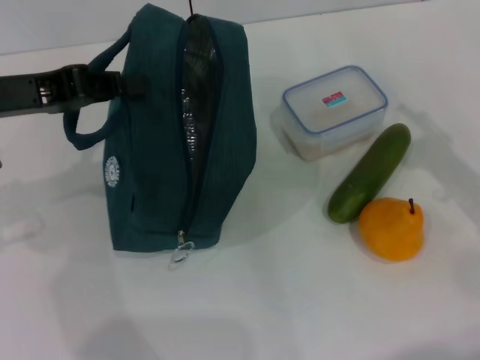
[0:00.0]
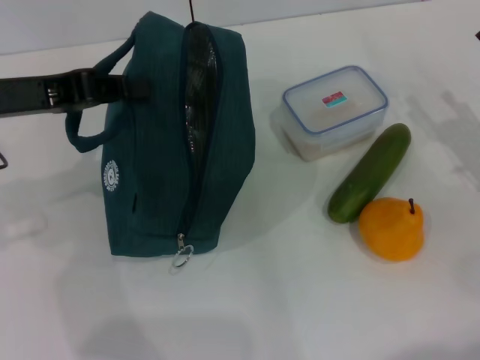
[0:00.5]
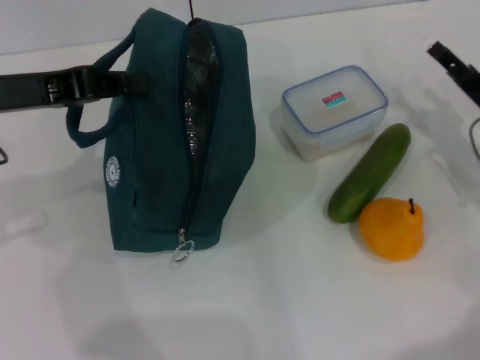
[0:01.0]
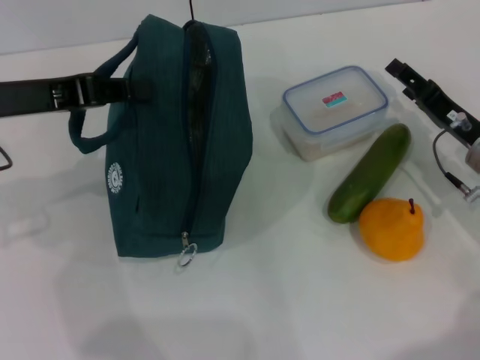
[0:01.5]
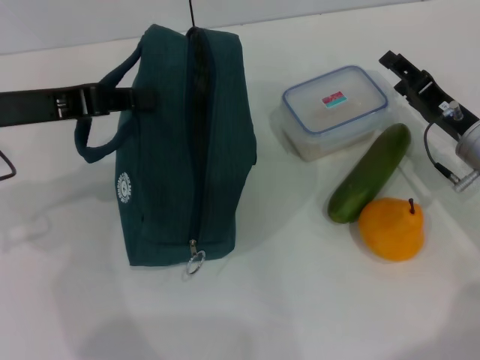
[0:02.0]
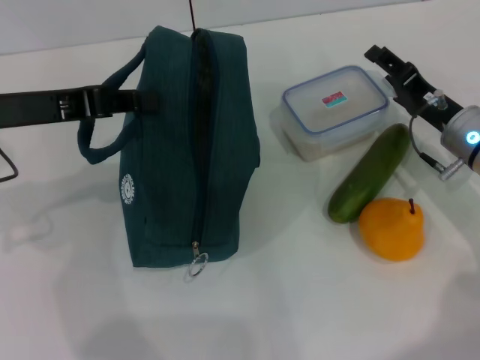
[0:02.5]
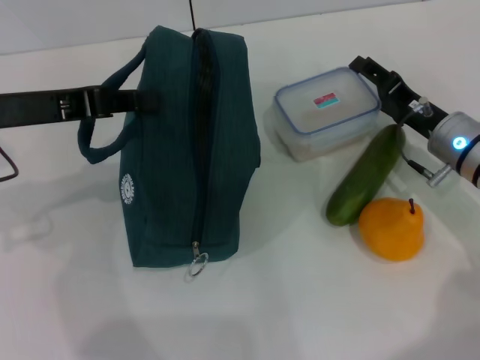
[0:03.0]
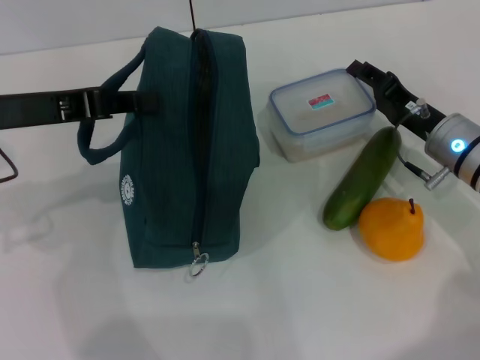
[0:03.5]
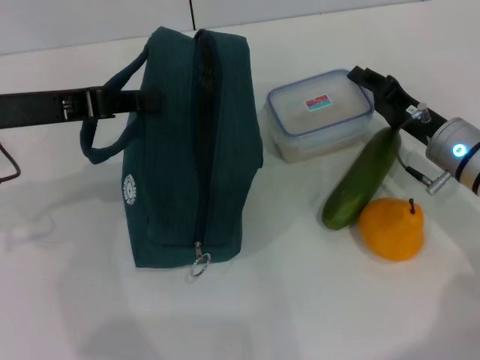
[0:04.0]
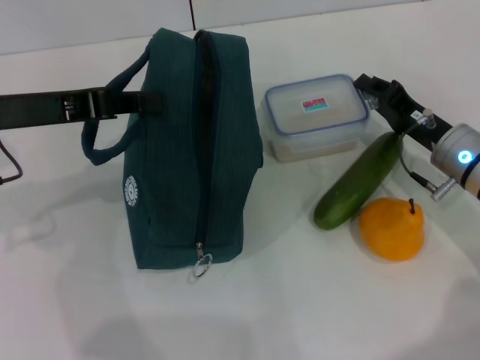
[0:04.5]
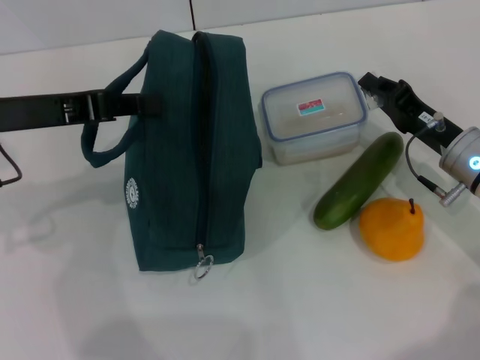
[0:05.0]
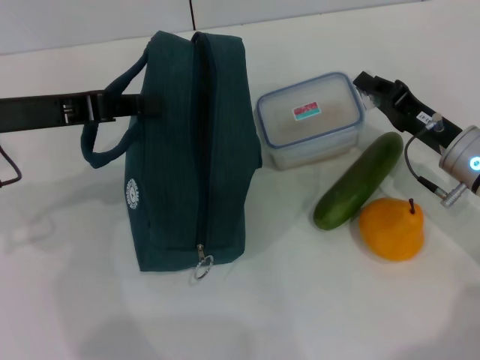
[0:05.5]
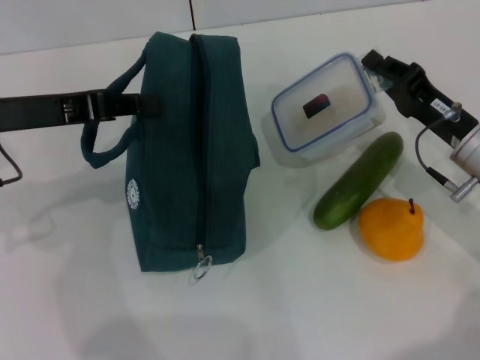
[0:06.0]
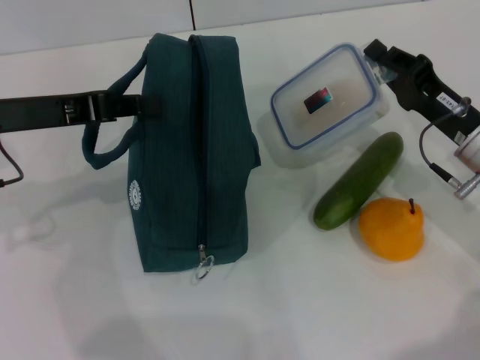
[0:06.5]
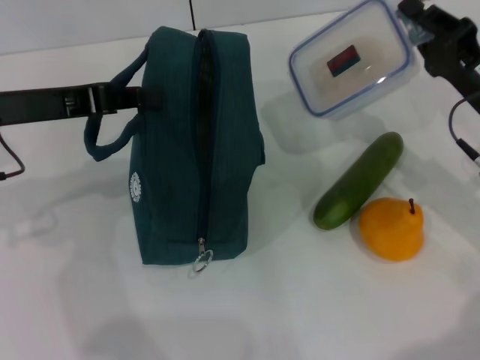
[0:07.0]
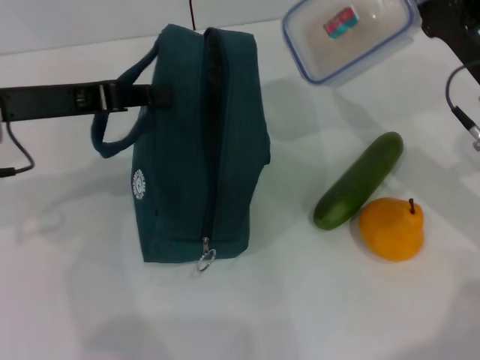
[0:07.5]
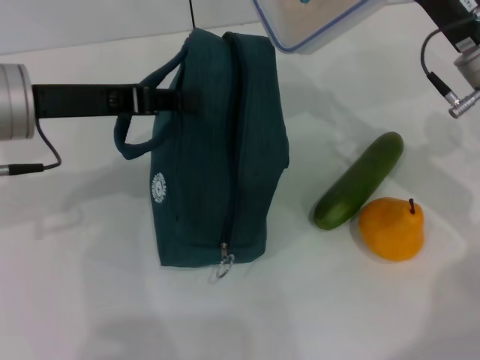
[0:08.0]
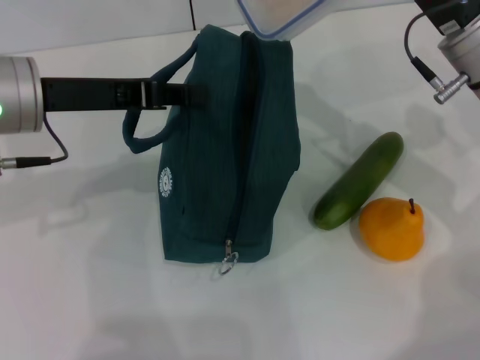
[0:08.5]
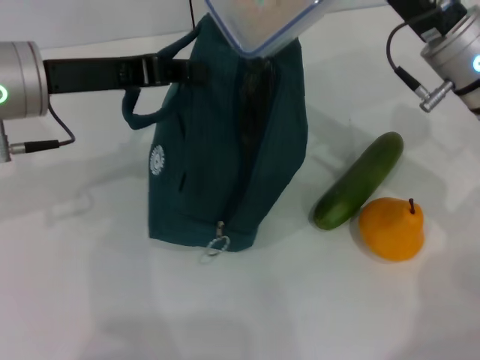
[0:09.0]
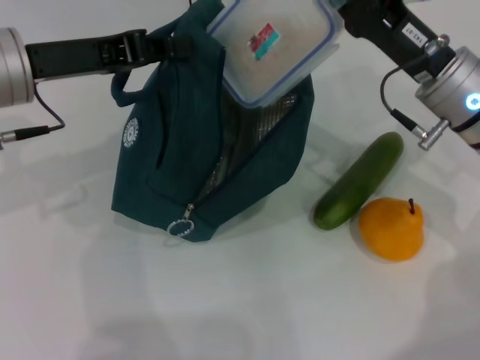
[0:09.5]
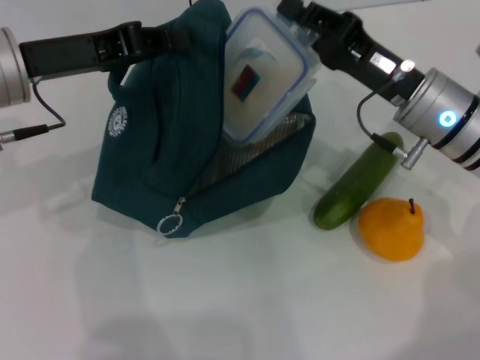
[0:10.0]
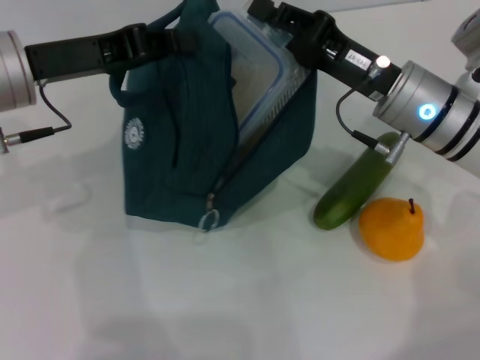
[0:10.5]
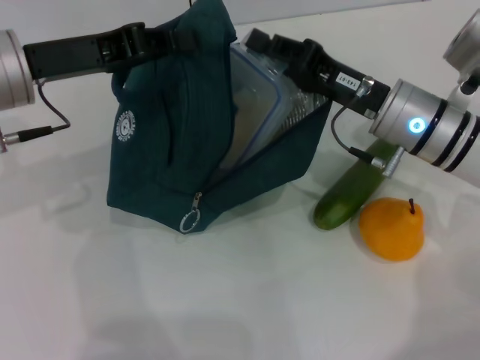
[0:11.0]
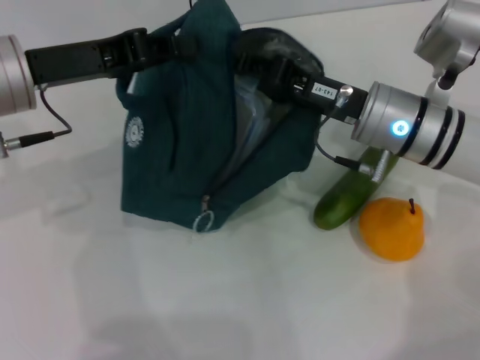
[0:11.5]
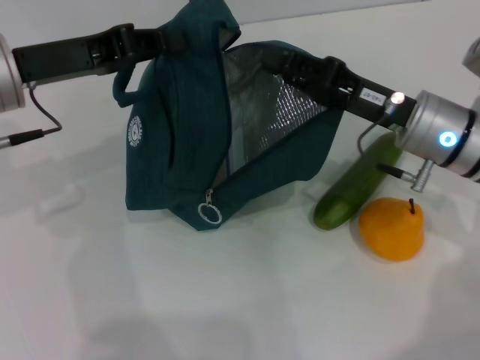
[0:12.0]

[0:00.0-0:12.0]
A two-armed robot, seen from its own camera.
Step, 0.0 to 5.0 s: Pick up the lunch box with your right hand.
Step, 5.5 to 11.5 s: Place the lunch box into the lunch bag with your right hand.
0.0 to 2.0 s: The right gripper goes roughly 10 cm forward, downward and to the left.
2.0 to 4.0 s: The right gripper closes.
4.0 to 6.0 s: The right gripper closes.
6.0 to 8.0 s: The right gripper heads upward, covering some 10 cm.
8.0 to 10.0 s: The right gripper moves about 5 cm.

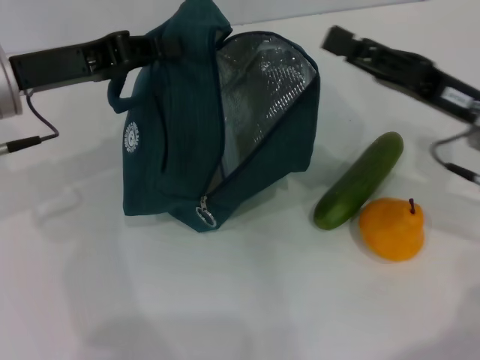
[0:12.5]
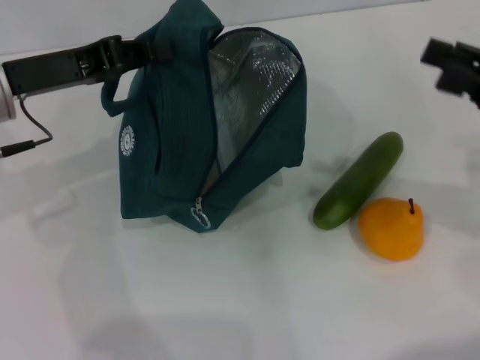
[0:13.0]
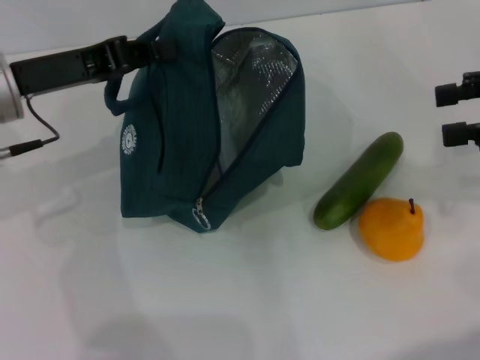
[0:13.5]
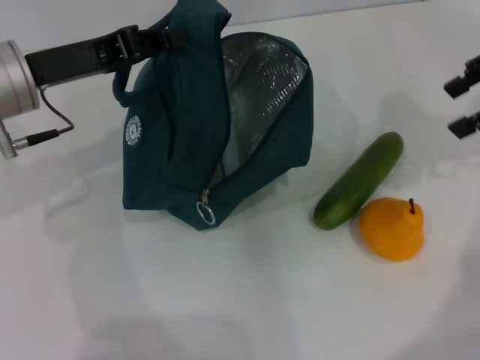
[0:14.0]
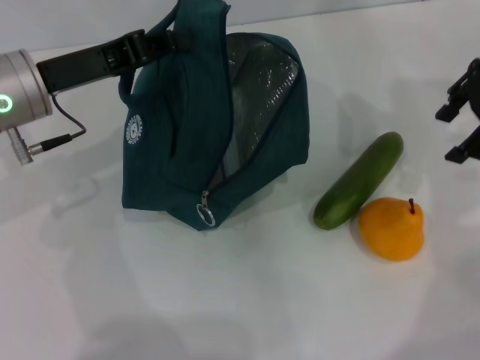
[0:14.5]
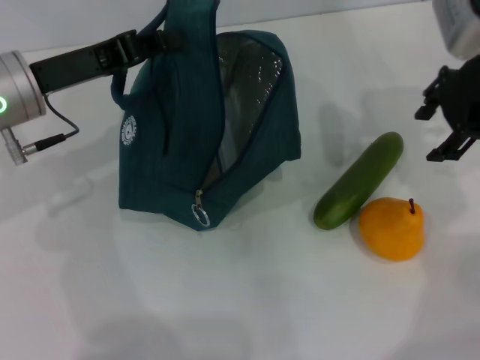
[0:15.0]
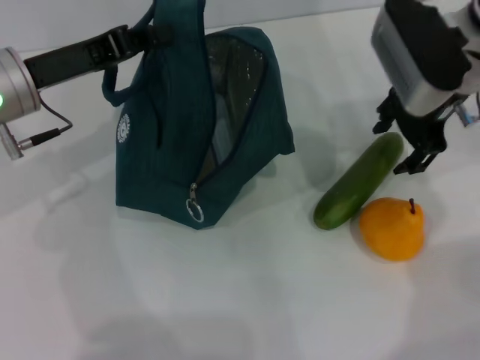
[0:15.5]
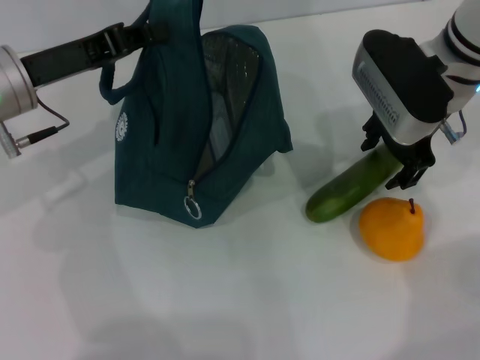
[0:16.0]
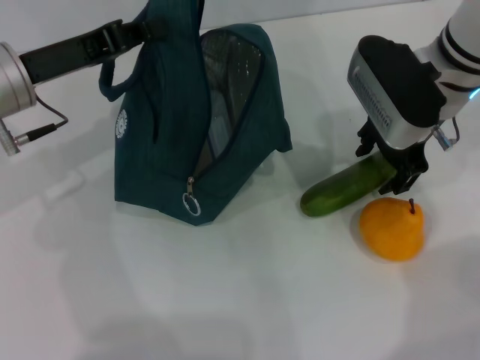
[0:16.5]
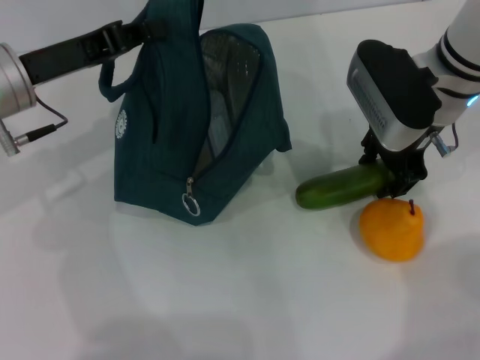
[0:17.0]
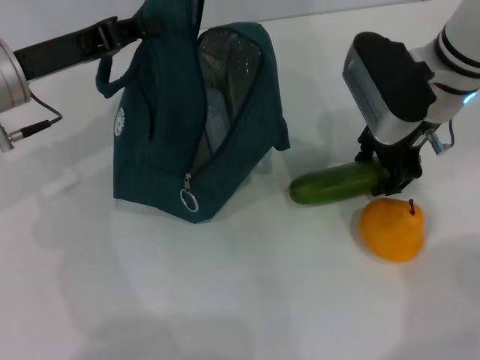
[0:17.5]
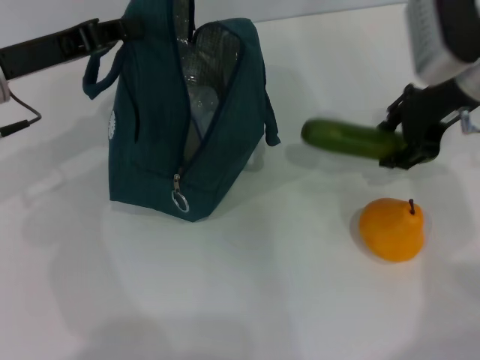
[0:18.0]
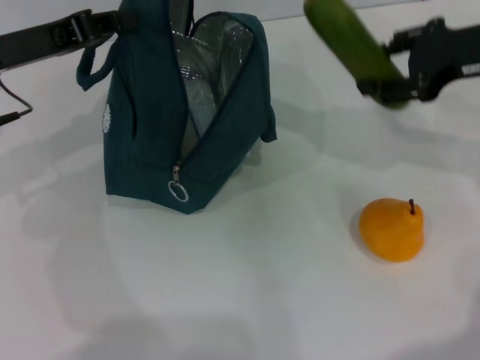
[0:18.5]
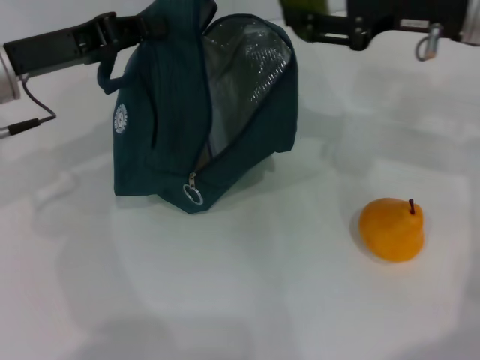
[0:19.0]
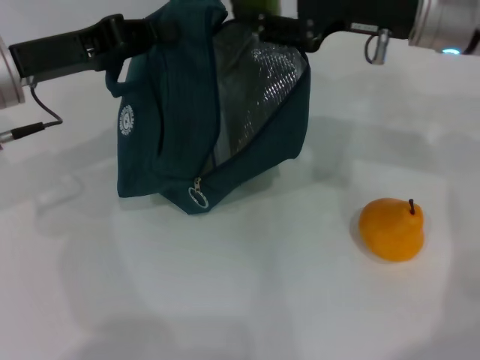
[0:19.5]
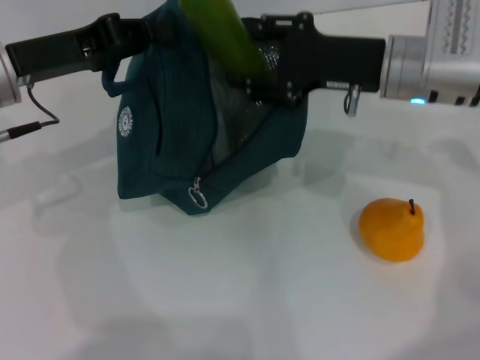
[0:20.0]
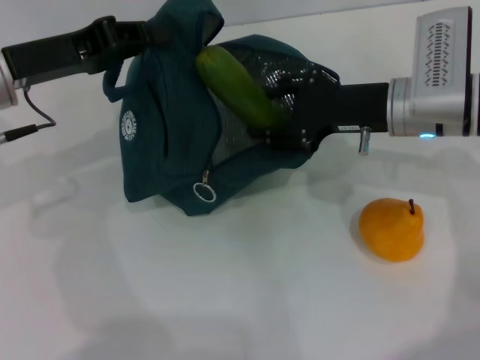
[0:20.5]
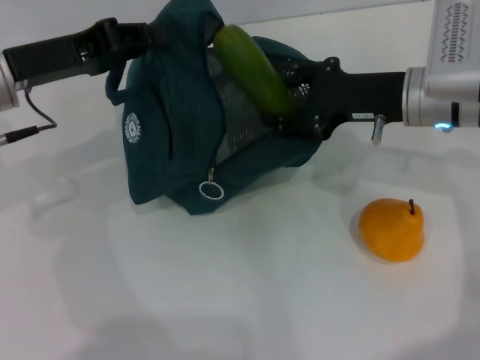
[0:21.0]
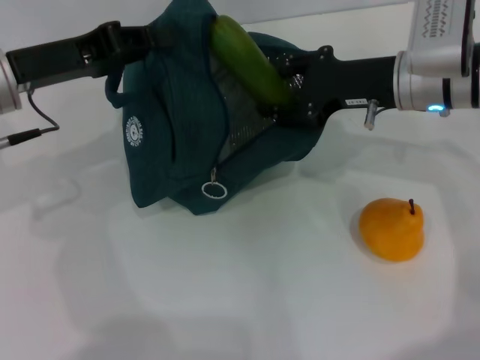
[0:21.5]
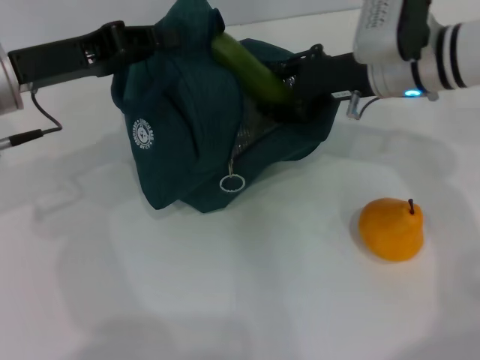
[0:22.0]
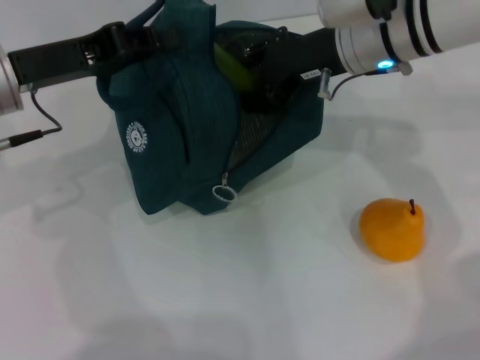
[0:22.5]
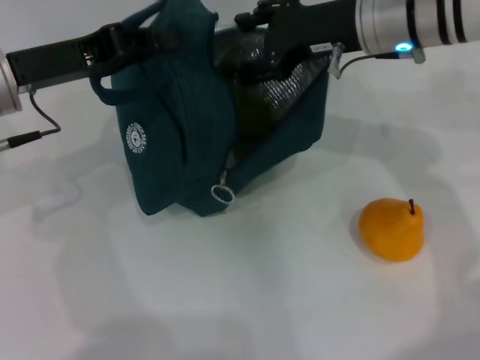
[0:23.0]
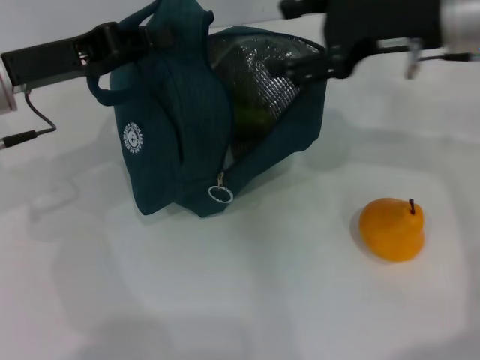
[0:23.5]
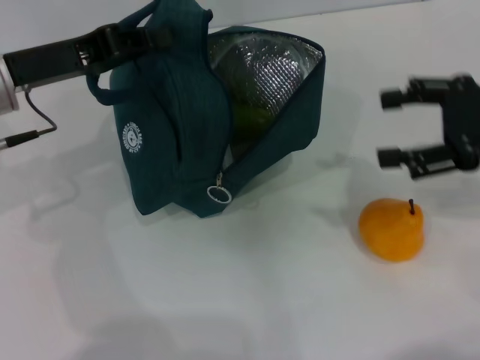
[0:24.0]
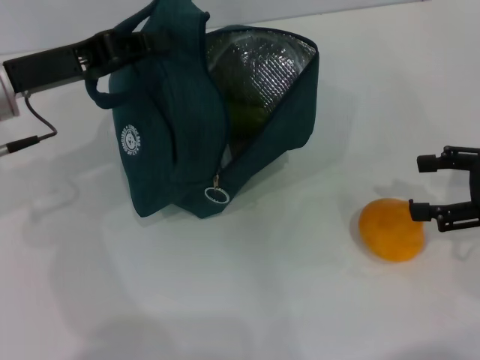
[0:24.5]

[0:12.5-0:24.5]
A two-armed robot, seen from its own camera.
Step, 12.5 to 17.0 s: Pick up the cucumber with your right hand.
Step, 17.5 to 23.0 s: Put the cucumber into the lunch bag with your right hand.
12.5 to 14.5 s: The right gripper shifts about 15 cm upward and forward, and opens its fingers.
14.5 to 16.5 s: The right gripper is displaced to the left and downward by some 10 cm.
16.5 to 18.5 s: The right gripper is displaced to the right by some 10 cm.
18.5 to 20.5 s: The right gripper travels downward and to the left by some 15 cm.
20.5 to 22.5 s: The right gripper shifts some 5 cm upward.
22.5 to 24.5 s: The right gripper moves to the right and backward, about 25 cm.

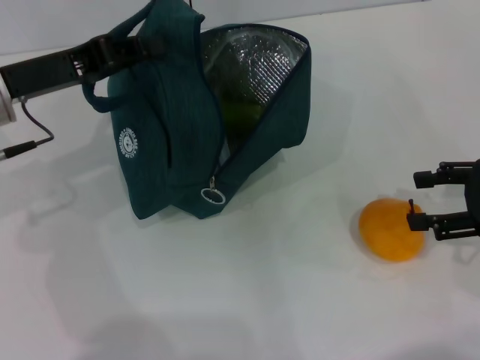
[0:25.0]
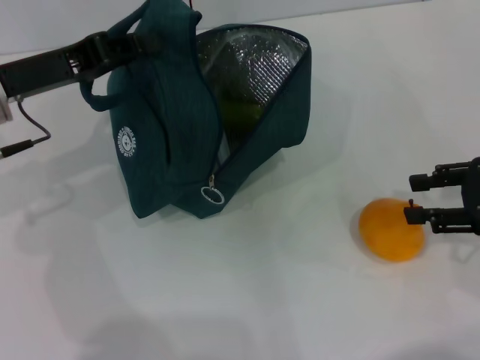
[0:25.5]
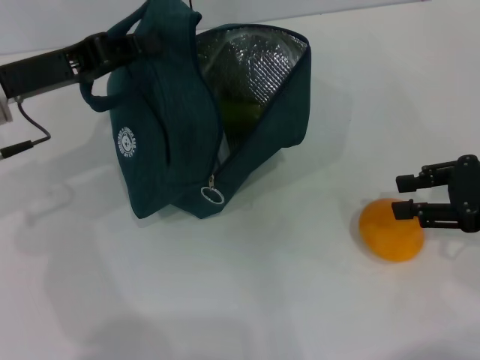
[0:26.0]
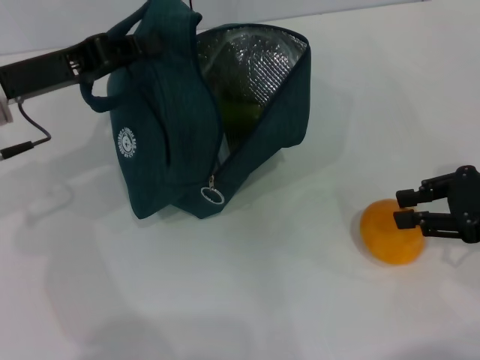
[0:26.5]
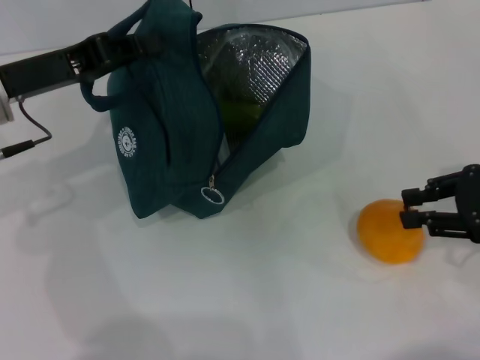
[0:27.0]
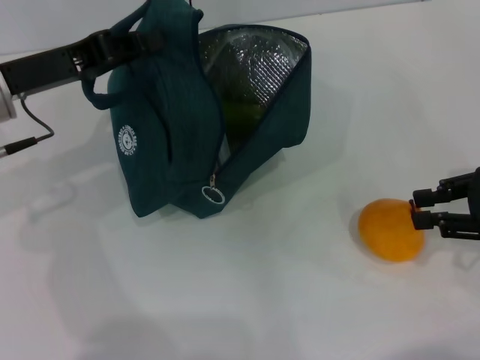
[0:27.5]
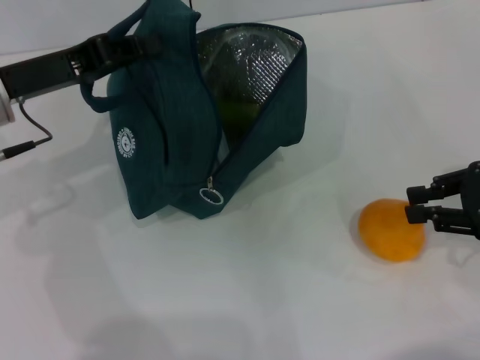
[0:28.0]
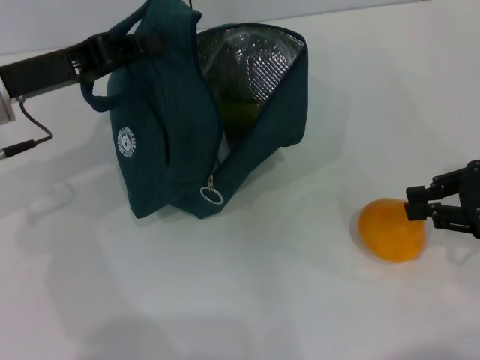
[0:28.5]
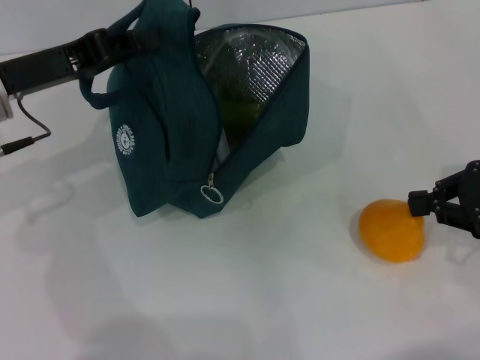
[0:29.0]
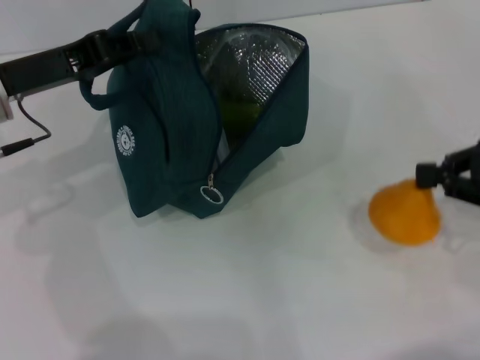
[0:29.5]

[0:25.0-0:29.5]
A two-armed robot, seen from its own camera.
Step, 25.0 to 28.5 s: Grab the pear with your right hand.
25.0 to 27.0 s: The right gripper closes up.
27.0 to 29.5 s: The right gripper closes.
